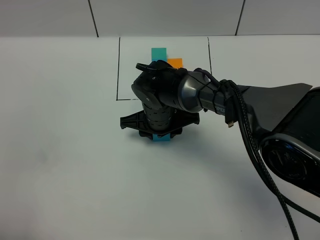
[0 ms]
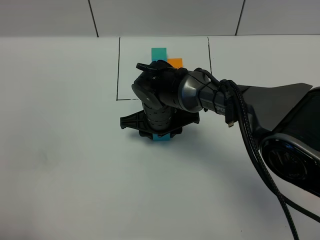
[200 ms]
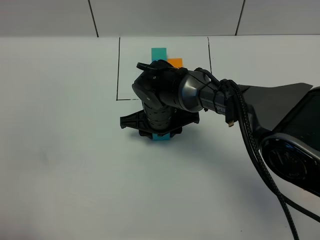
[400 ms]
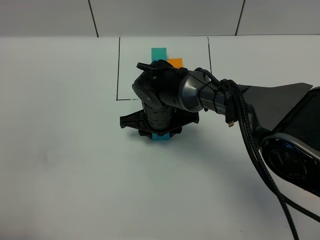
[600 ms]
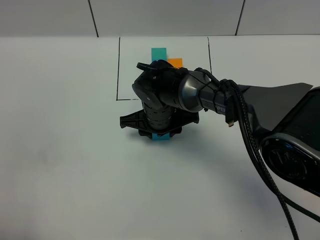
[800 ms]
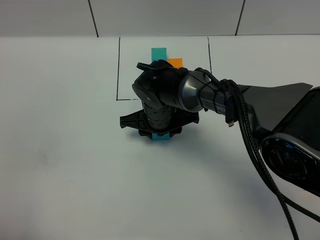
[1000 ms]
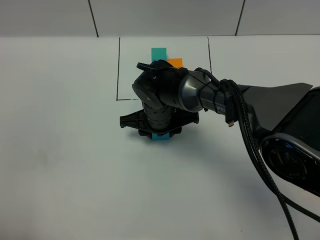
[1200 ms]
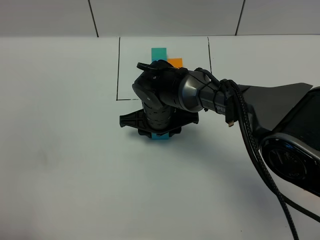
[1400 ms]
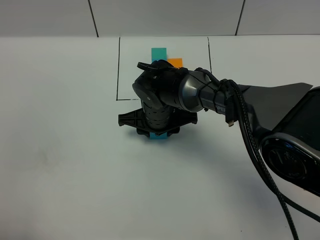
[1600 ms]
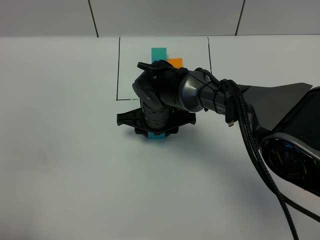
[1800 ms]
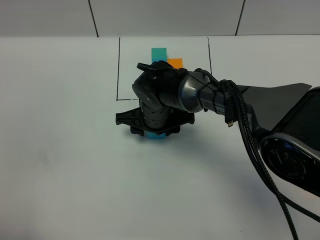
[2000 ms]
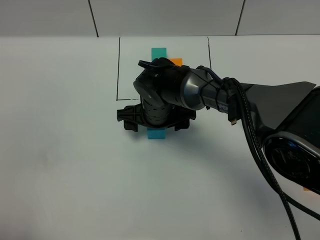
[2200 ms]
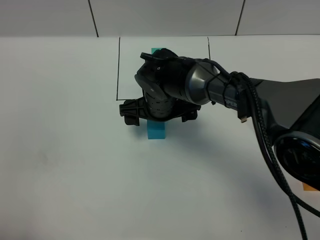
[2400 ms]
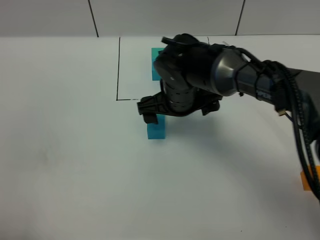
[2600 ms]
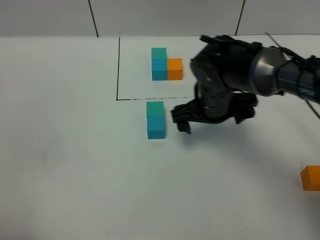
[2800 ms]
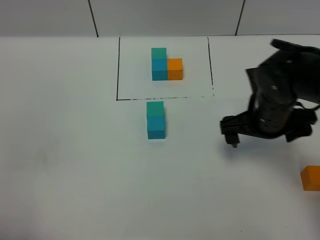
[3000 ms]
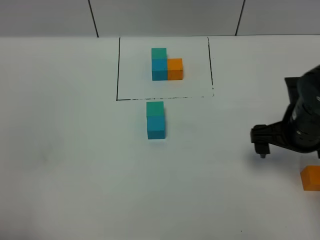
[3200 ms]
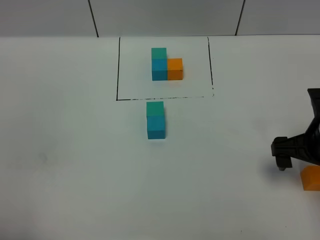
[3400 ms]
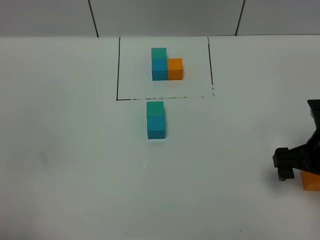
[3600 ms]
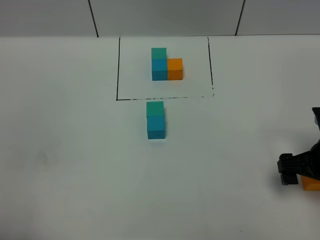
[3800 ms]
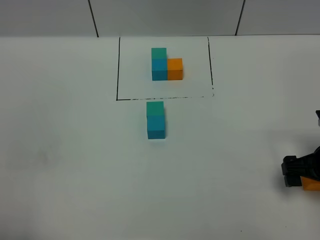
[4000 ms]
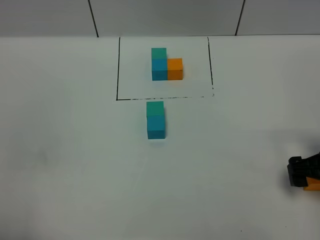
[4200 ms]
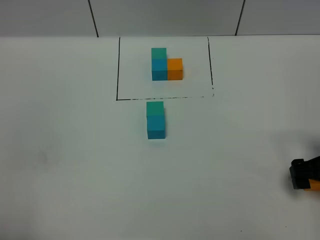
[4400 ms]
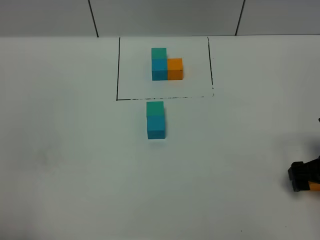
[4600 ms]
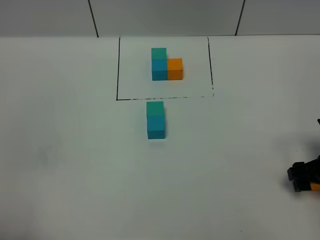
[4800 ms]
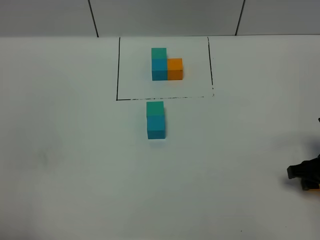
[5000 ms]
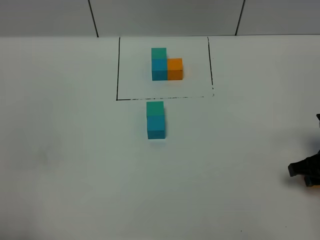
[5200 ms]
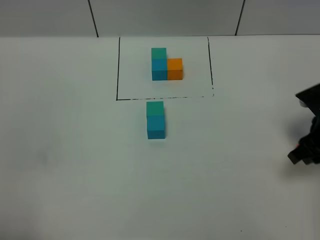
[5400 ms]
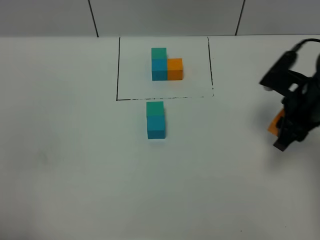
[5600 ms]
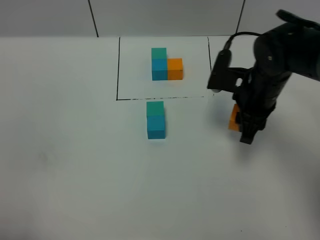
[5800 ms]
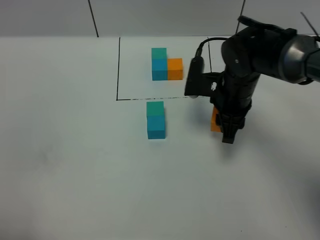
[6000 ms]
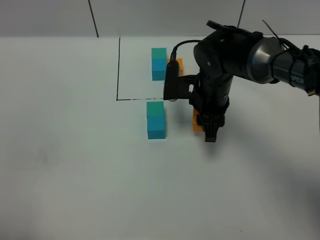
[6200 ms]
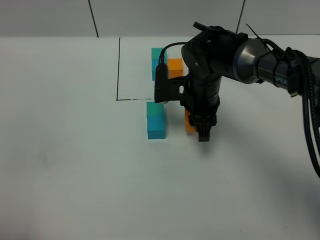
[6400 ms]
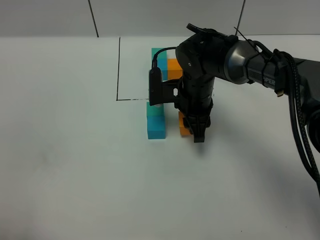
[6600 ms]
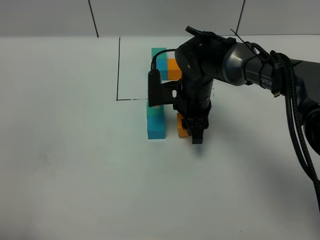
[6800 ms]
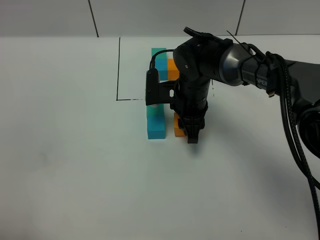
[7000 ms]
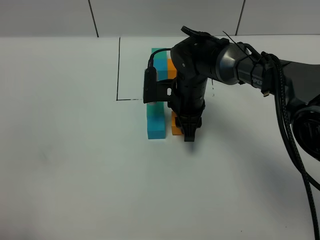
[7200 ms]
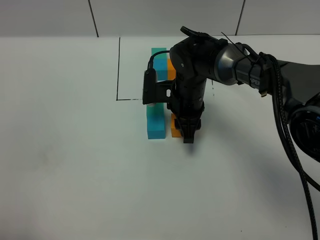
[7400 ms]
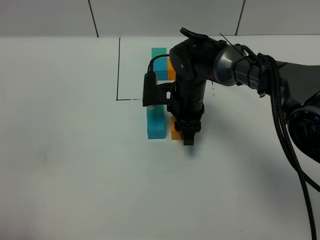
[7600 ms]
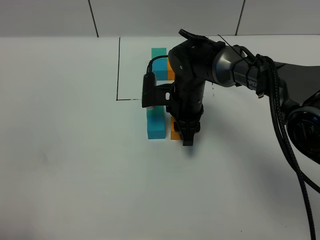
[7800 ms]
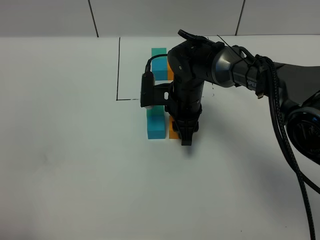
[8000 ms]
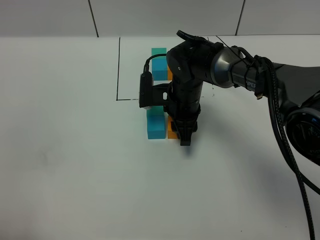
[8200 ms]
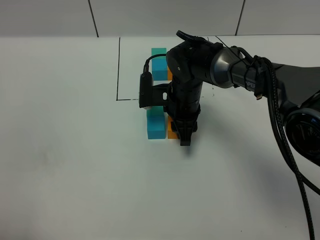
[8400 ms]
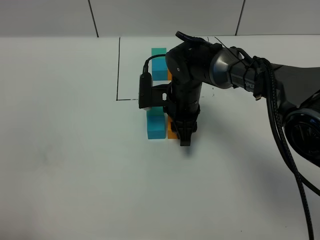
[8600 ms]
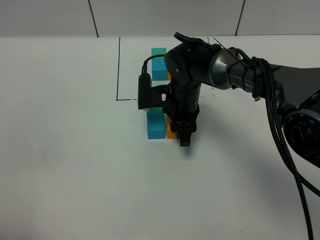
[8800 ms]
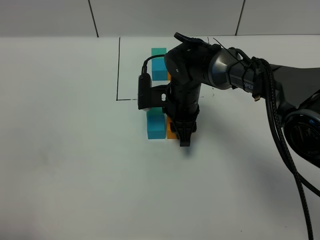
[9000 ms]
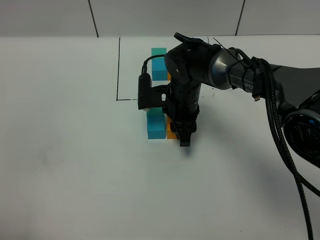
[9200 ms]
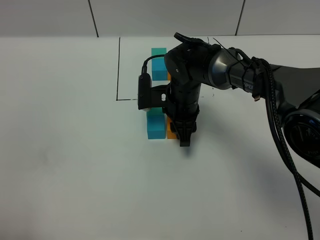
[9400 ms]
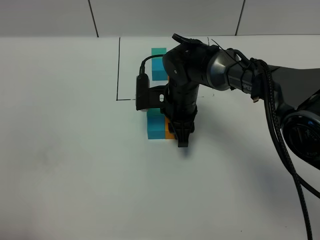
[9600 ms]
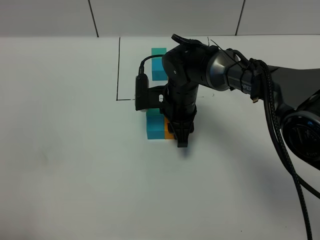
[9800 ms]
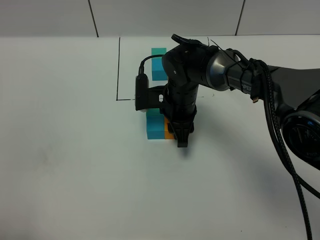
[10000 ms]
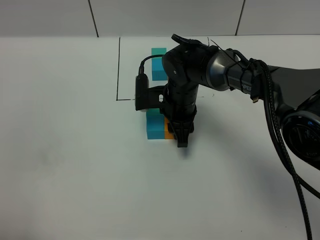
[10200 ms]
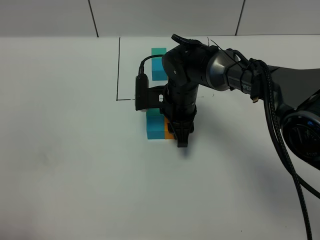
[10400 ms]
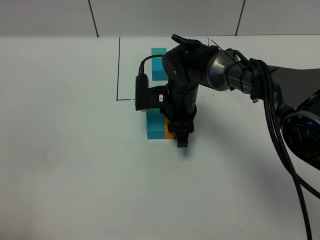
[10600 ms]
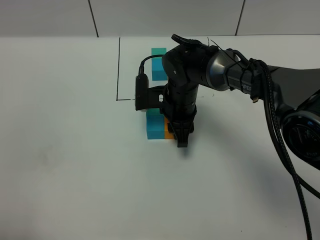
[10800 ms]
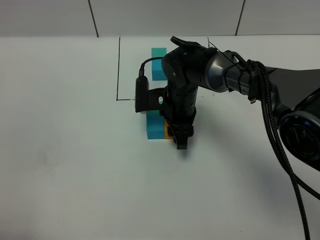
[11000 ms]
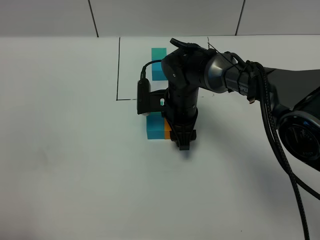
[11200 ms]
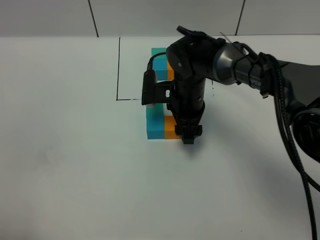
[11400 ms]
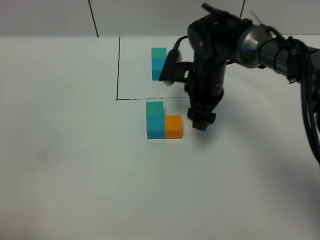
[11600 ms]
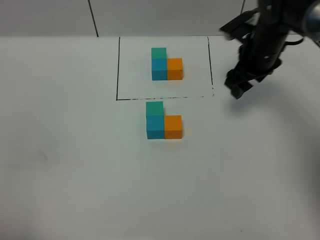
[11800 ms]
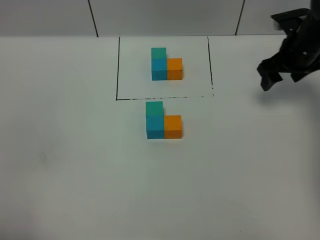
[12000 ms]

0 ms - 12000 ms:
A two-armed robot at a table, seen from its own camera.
Task of the whole recording: According to the building block template in front, assemble the scattered blocks together.
Step, 2200 ms - 11200 ms: Put the orange build block on the right of the blue build block.
0 ms - 1600 ms: Neither gripper changes place.
1600 ms - 3000 ms: The right gripper travels to the right by about 20 cm, and opens its fingers.
3000 ms - 4400 ms: The right gripper heads to the right and backward, covering roughly 15 cm.
4400 ms - 6000 ms: The right gripper shifts about 20 cm to the left and forward, and closes its fingers.
6000 ms - 7600 ms: The right gripper is displaced to the left by some 10 cm.
7600 ms - 9000 ms: The two grippers keep their place.
9000 ms - 10400 ms: The two grippers keep their place.
10400 ms - 12000 ms: The right gripper moves to the right, about 25 cm, and opens its fingers.

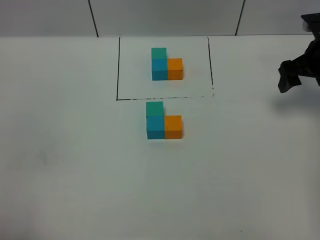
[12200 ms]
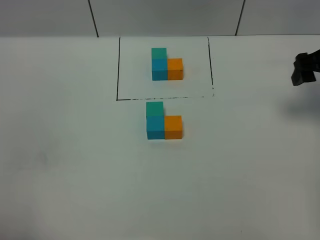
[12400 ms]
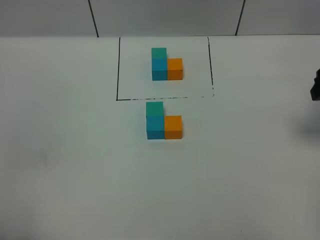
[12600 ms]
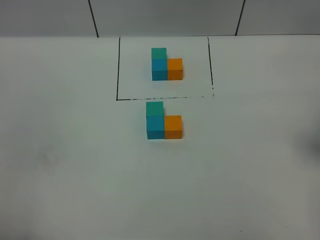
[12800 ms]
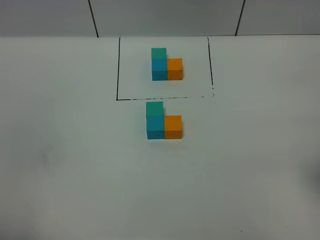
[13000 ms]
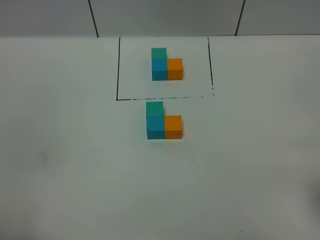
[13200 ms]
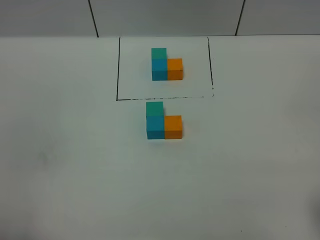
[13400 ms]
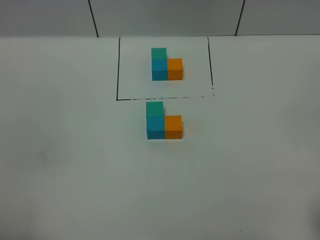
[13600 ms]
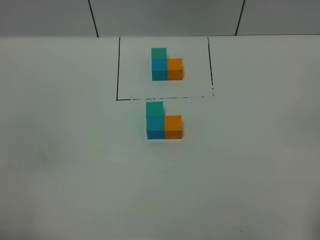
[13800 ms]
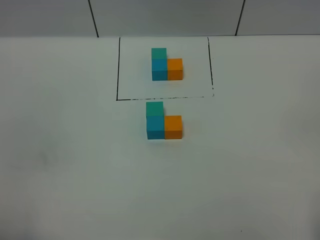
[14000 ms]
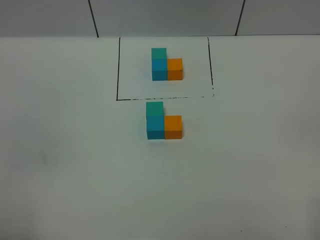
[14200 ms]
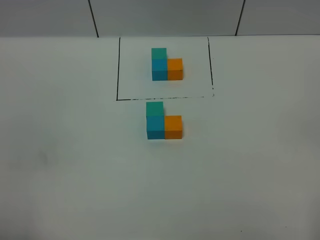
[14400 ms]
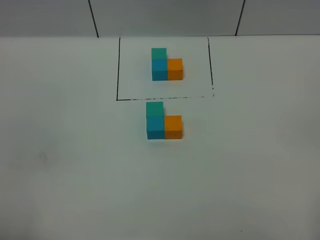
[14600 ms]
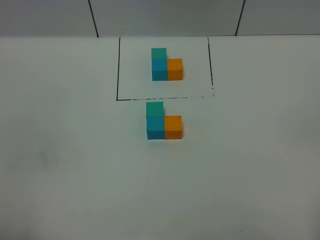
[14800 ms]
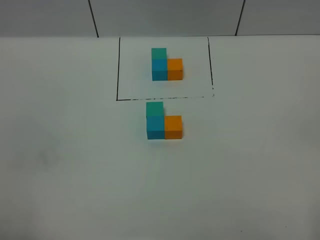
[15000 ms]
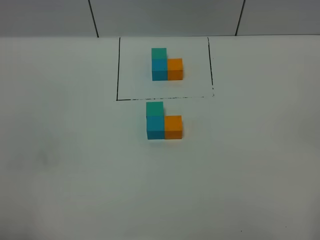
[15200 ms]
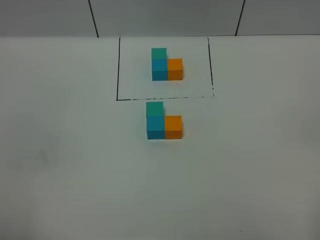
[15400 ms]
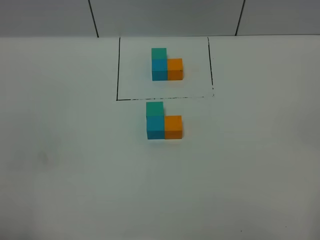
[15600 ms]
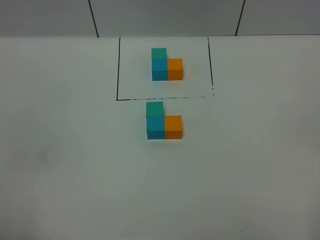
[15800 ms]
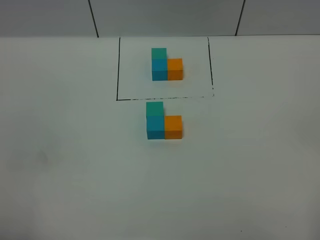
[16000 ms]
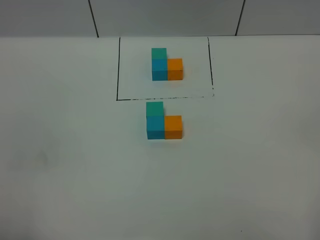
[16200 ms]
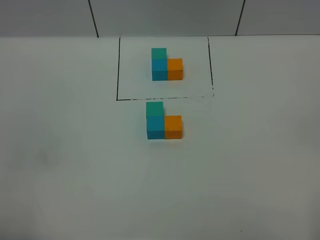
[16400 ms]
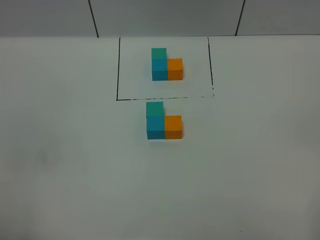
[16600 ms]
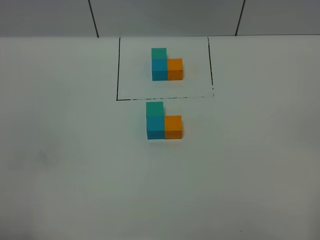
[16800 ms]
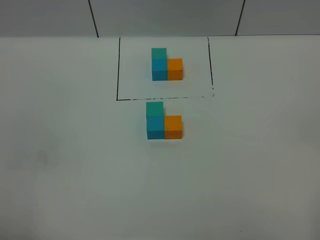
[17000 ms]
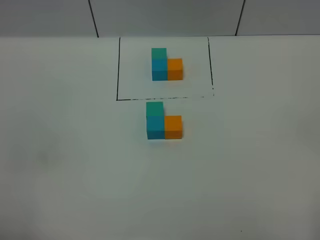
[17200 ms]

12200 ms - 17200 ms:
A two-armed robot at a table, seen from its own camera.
Task of the whole recording: According to the building block template in front, assemble the scattered blocks together.
12200 ms - 13800 ms: The right gripper travels backward by about 35 cm.
15600 ms - 17200 ms: Both grippers stay about where they are.
